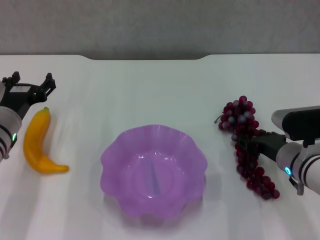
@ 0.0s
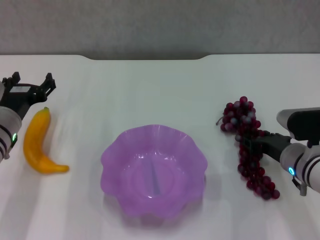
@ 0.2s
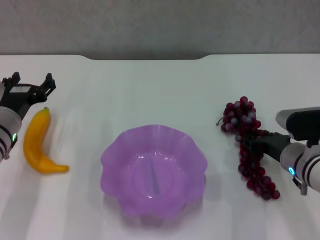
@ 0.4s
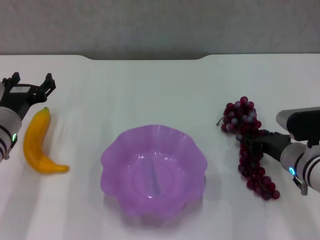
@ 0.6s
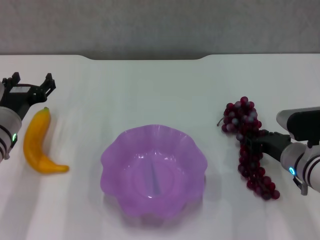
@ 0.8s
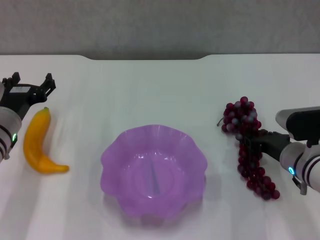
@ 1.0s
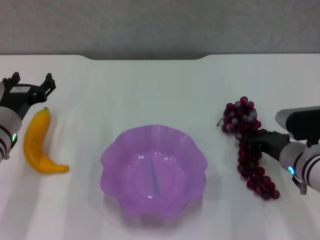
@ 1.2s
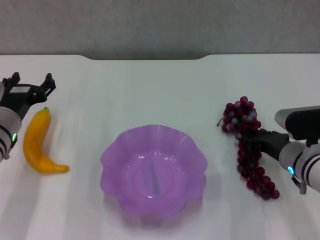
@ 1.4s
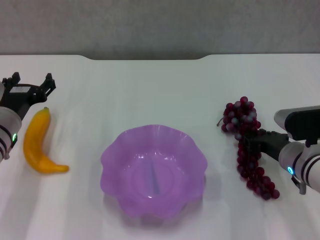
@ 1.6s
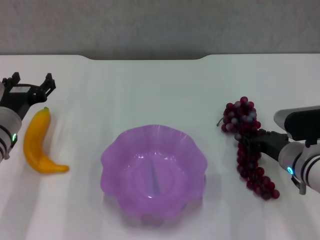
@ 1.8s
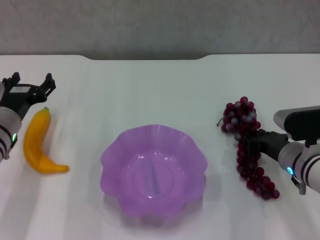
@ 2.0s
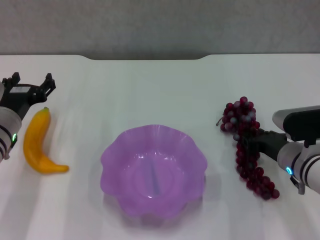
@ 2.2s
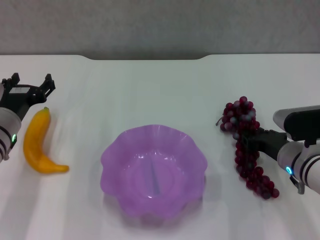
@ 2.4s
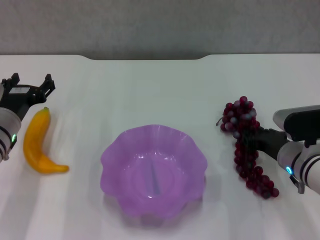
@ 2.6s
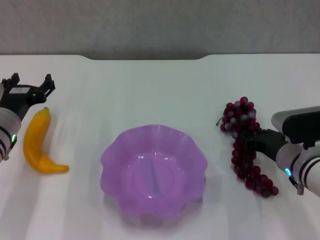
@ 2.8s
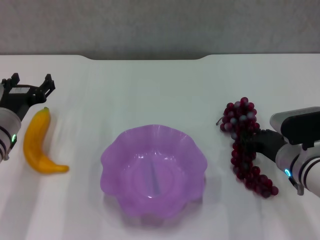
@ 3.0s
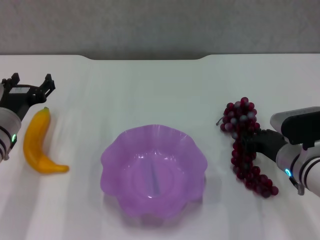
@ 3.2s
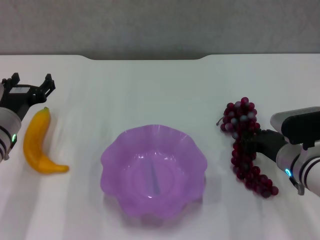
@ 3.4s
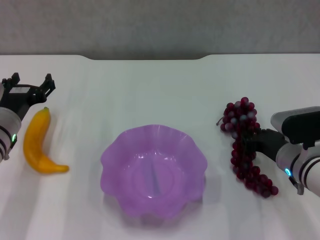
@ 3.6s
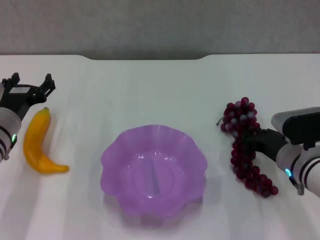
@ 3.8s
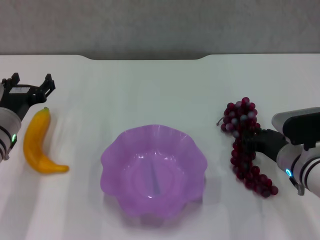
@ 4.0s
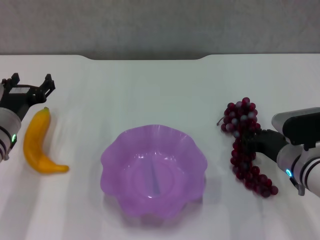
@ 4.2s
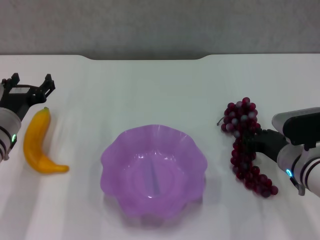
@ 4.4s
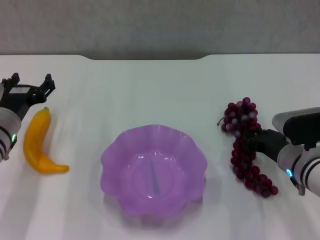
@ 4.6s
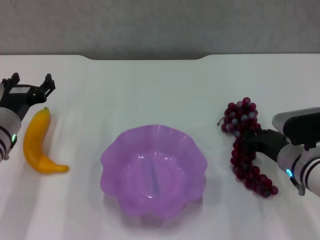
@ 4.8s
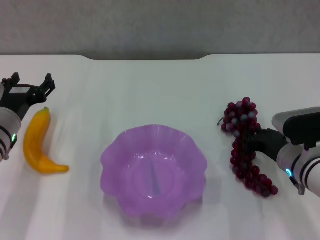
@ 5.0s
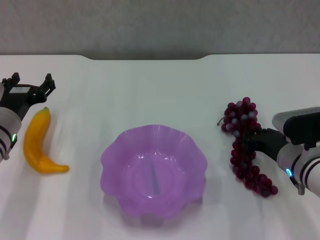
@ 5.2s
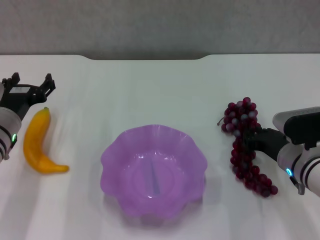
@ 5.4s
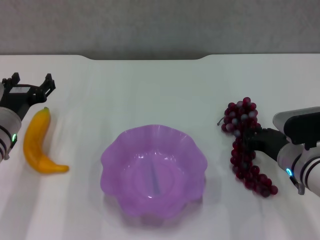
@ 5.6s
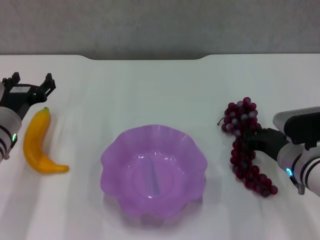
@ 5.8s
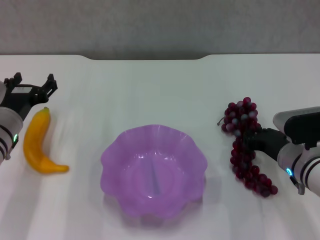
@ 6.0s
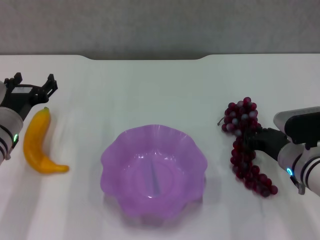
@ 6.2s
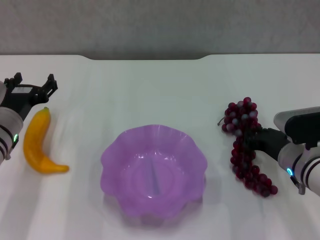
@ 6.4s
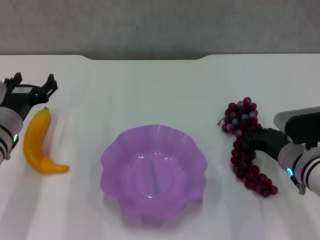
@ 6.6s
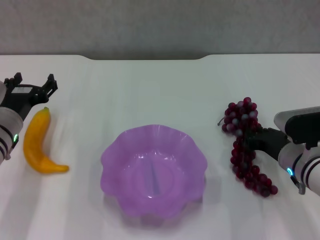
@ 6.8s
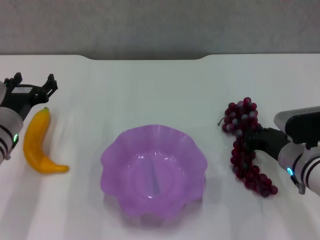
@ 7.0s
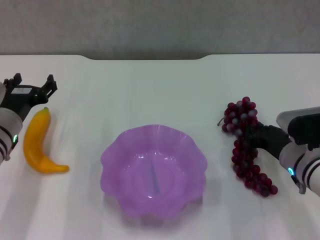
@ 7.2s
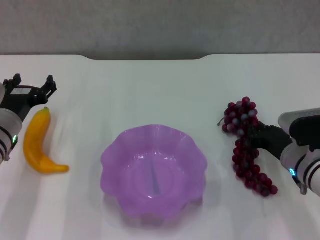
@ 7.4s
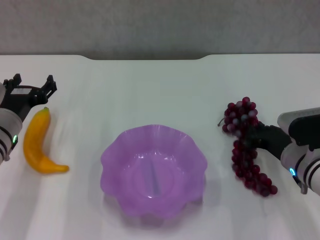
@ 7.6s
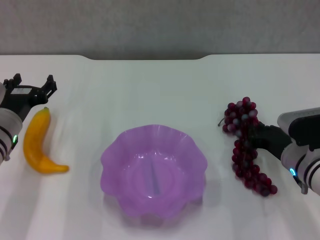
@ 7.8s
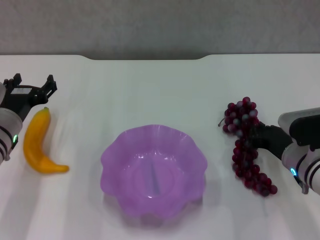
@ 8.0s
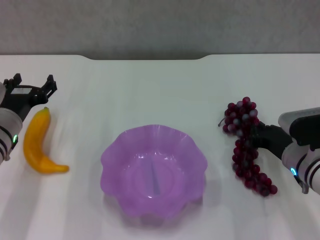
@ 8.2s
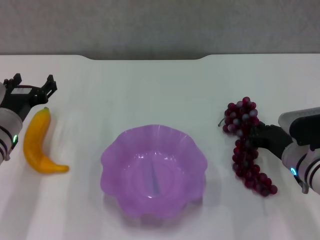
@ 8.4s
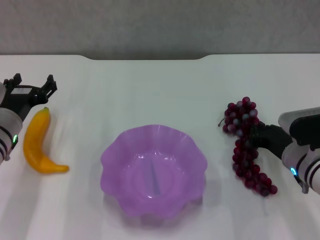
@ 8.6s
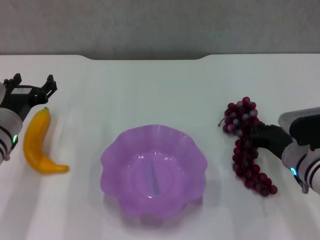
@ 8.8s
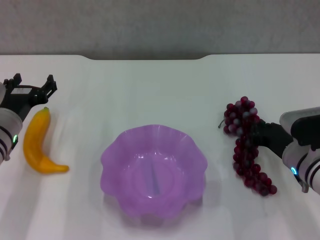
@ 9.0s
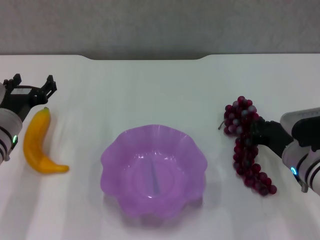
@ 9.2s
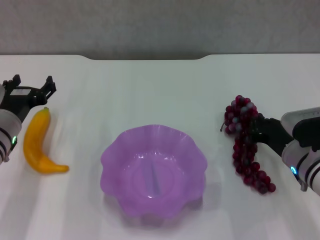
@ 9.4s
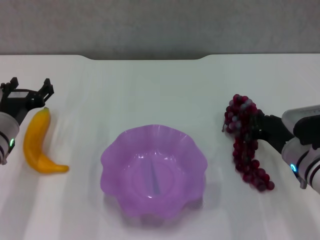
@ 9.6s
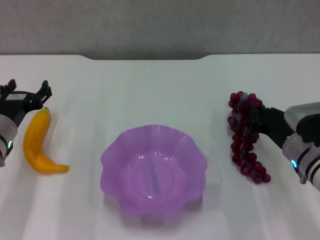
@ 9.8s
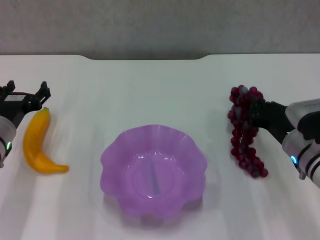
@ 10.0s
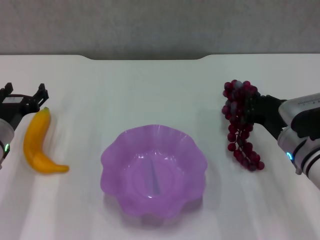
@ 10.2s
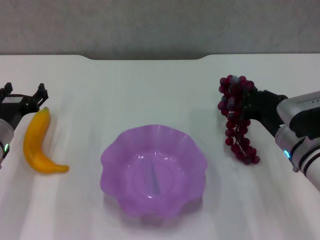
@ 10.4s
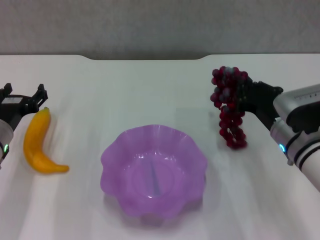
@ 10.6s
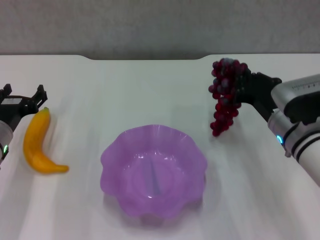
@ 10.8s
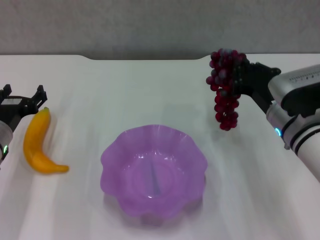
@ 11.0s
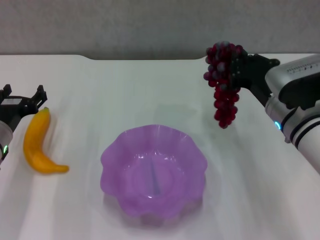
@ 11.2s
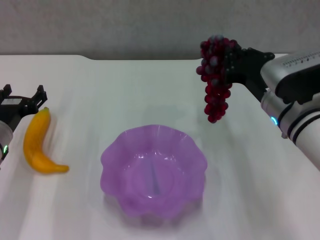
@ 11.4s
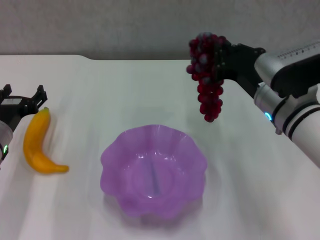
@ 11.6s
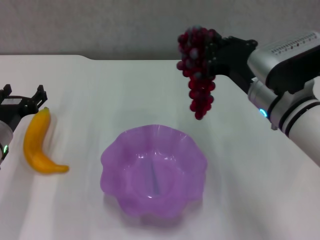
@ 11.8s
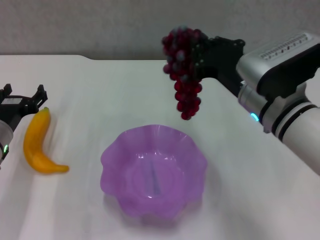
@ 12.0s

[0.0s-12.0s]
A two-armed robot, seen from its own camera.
0.0s to 6.0s: The two grippers keep their place.
6.0s to 9.0s: The two grippers keep their place.
9.0s to 10.4s: The grippers stay close to where they were, moving slightly.
10.4s to 12.0s: The right gripper goes about 15 cm upward and to the left.

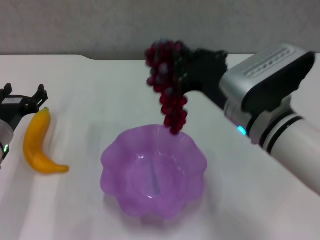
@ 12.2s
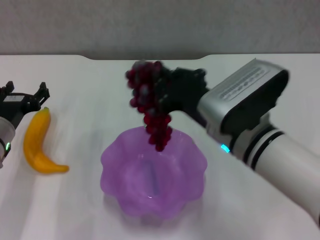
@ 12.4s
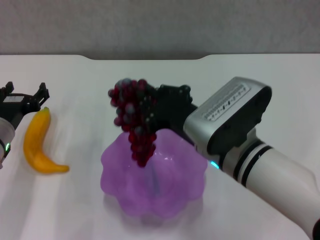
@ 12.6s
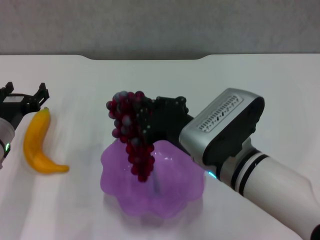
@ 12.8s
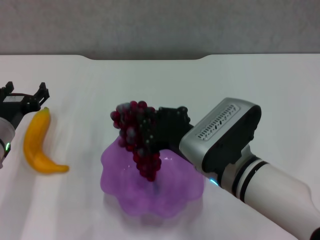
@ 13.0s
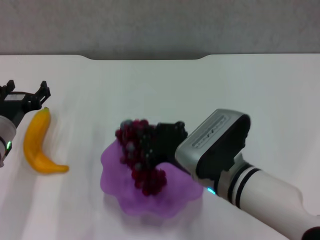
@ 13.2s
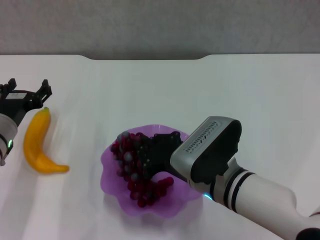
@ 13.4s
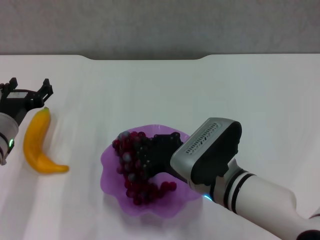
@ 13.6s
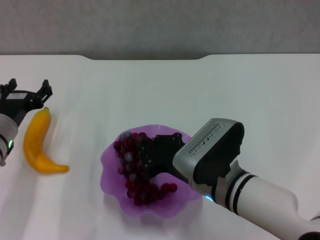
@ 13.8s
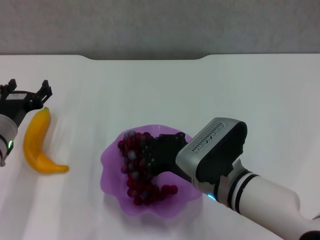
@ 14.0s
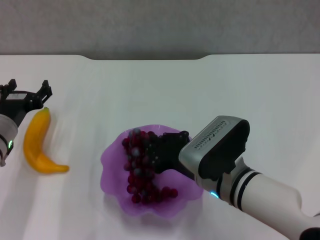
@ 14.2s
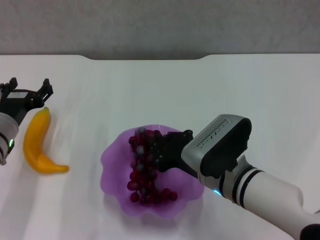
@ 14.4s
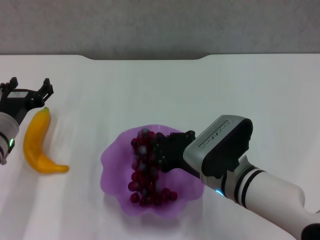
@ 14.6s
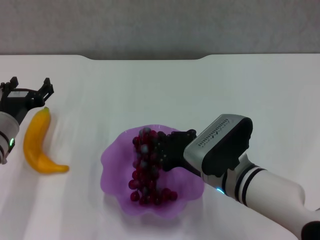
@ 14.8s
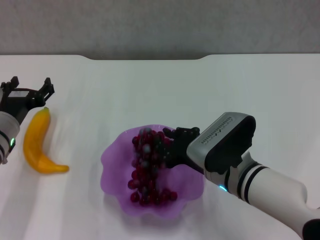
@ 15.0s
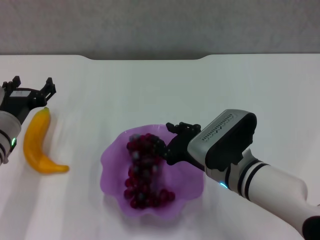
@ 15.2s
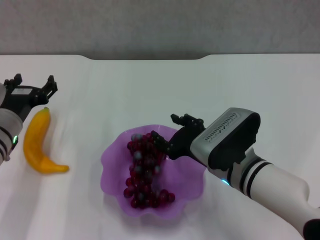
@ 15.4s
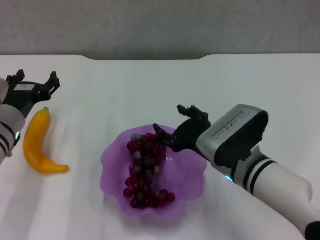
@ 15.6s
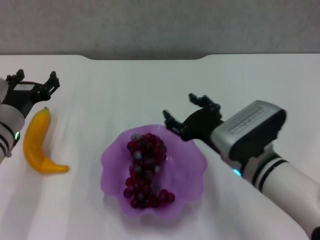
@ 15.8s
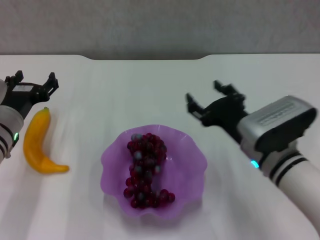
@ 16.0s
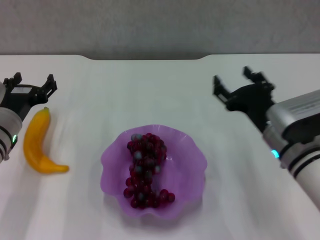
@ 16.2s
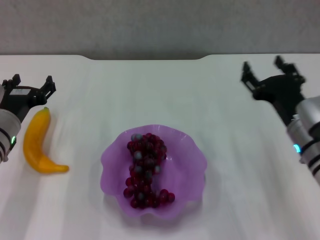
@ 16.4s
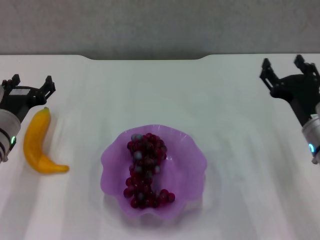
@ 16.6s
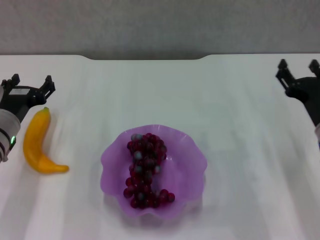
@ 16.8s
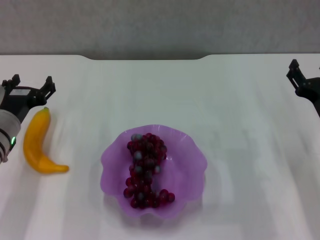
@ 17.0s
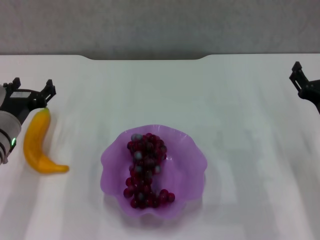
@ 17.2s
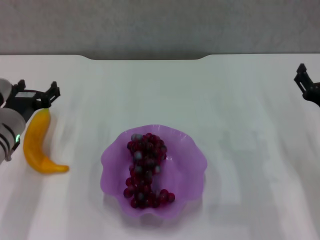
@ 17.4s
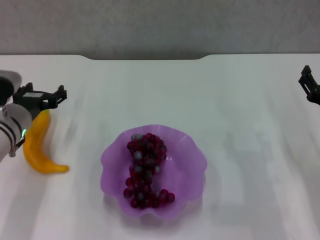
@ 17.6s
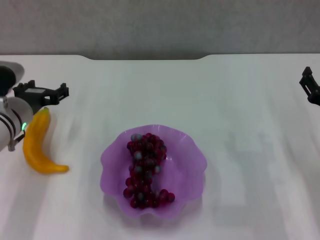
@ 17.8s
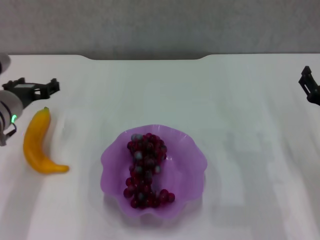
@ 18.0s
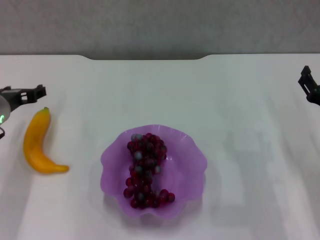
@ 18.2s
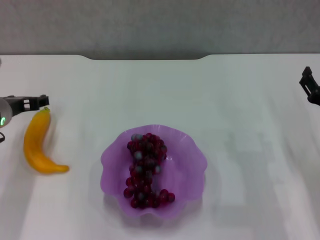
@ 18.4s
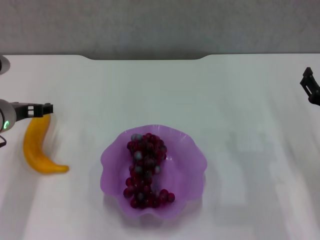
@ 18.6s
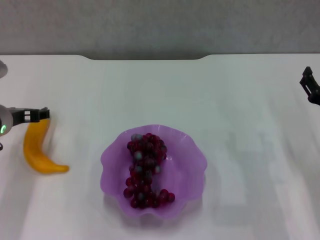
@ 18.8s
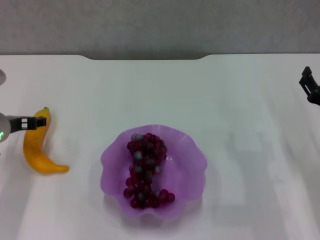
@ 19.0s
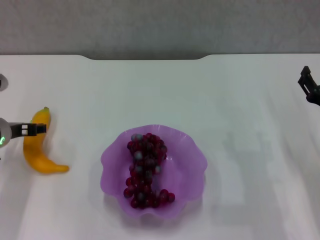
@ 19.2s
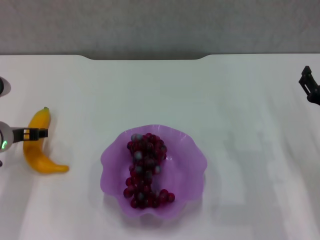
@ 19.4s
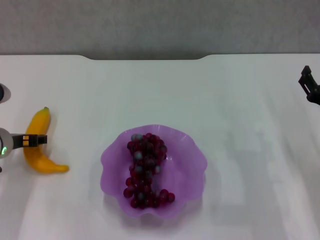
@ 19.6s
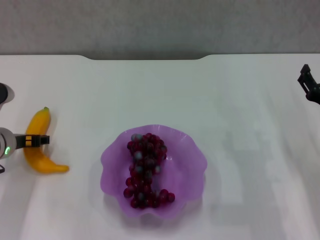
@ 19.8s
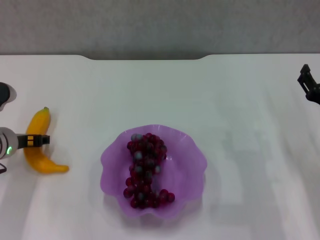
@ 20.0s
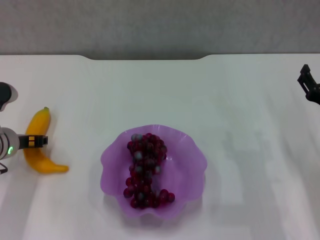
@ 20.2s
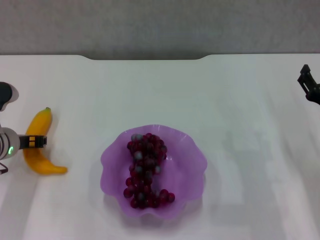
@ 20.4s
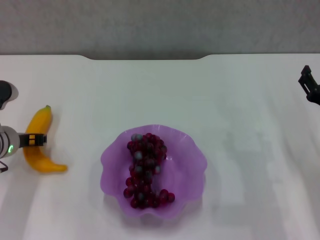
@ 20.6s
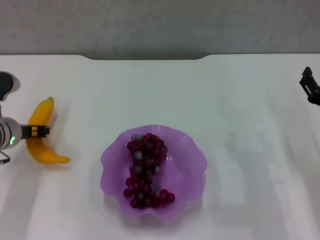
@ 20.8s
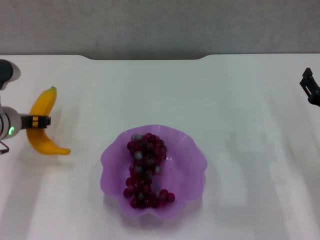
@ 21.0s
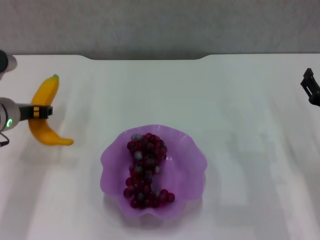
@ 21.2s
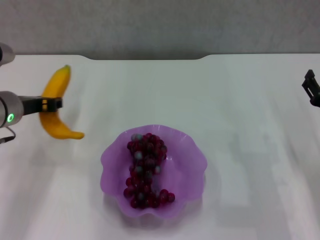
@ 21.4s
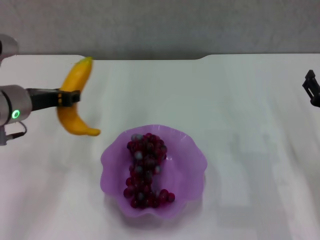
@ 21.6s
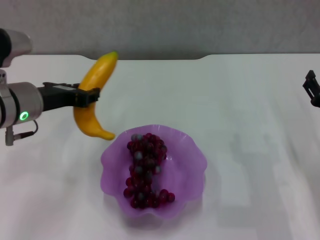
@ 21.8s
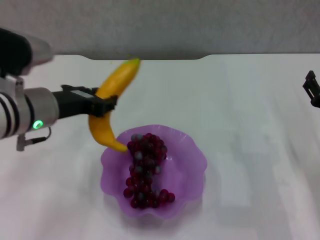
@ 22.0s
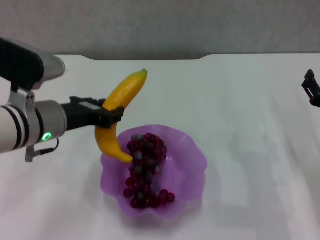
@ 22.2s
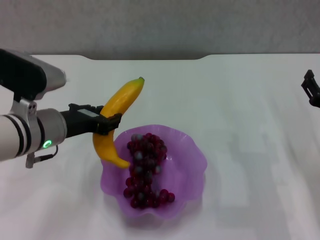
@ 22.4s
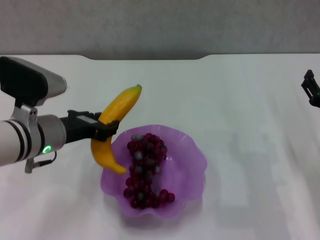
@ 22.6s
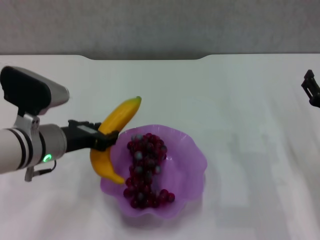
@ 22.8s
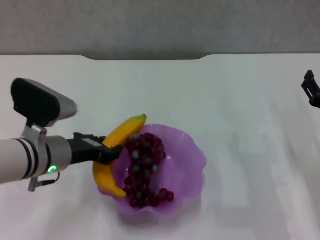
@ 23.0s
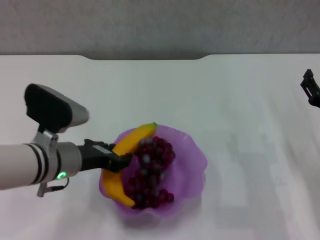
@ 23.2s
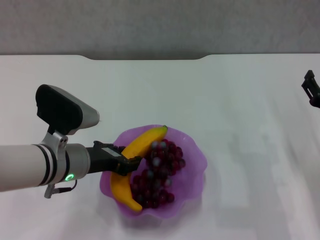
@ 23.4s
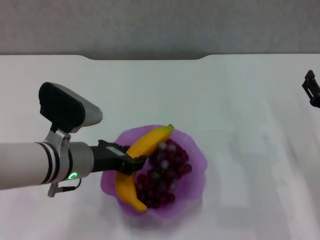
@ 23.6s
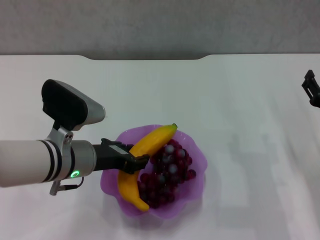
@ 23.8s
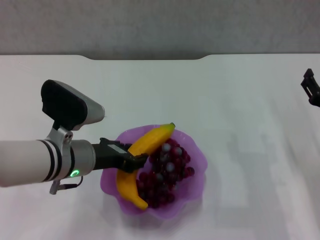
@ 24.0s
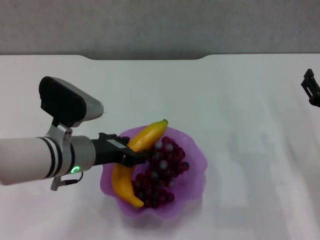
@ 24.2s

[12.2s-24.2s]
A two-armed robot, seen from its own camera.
Step, 12.2s to 15.0s: Place the grape in the purple plate with right gripper.
Step, 15.4s to 20.6s: Grasp the banana with left gripper.
12.2s to 13.8s: The right gripper moves downward, some 10 cm.
13.8s to 15.2s: There are only small adjustments of the grippers.
15.2s to 16.6s: The right gripper goes roughly 15 cm to the right, and opens its fingers.
16.6s to 18.2s: The grippers make only small movements.
18.2s to 19.8s: The grippers stay close to where they were, moving slightly.
19.8s to 21.2s: The left gripper moves upward, about 5 cm, and closes its fingers.
21.2s to 22.6s: The left gripper shifts some 5 cm to the right.
22.6s to 24.2s: The grippers move only a little.
